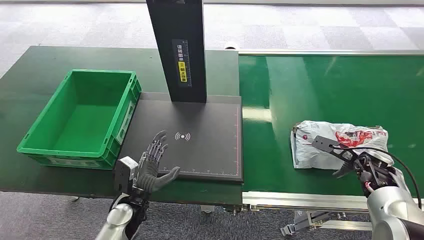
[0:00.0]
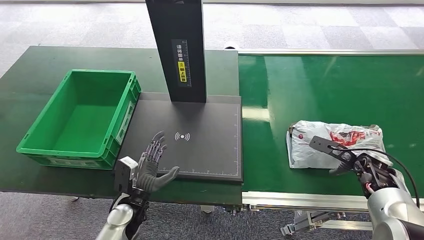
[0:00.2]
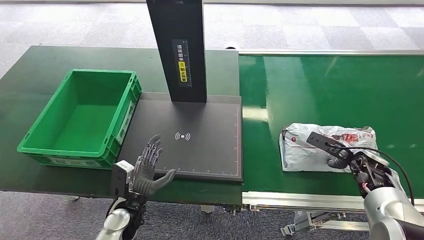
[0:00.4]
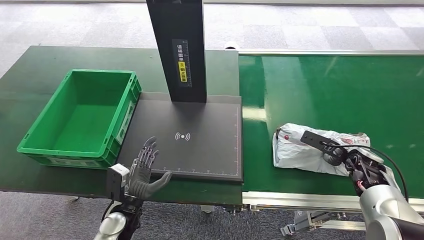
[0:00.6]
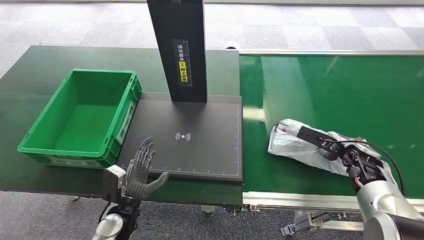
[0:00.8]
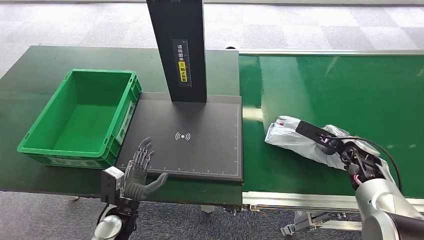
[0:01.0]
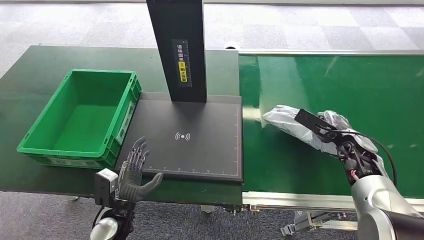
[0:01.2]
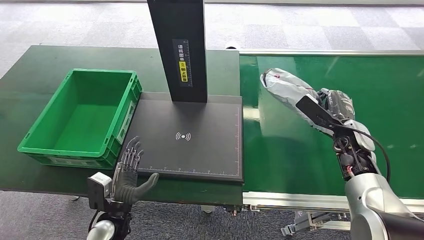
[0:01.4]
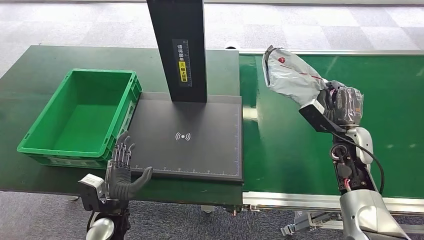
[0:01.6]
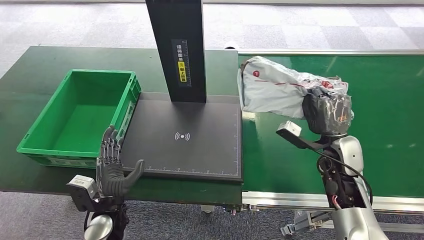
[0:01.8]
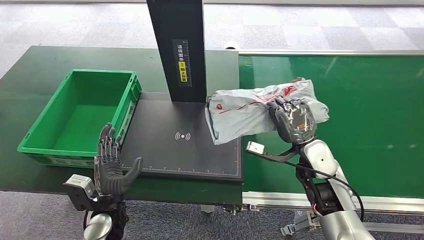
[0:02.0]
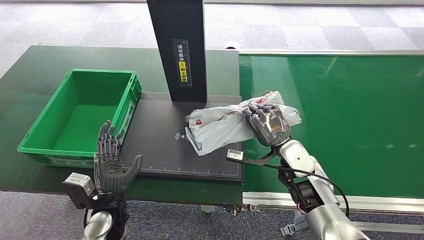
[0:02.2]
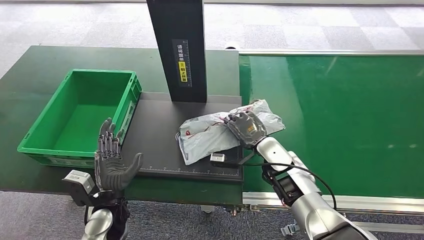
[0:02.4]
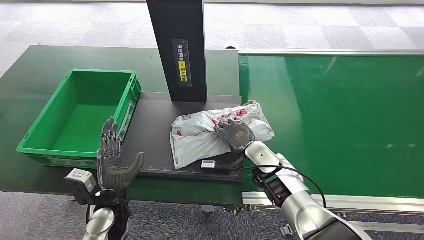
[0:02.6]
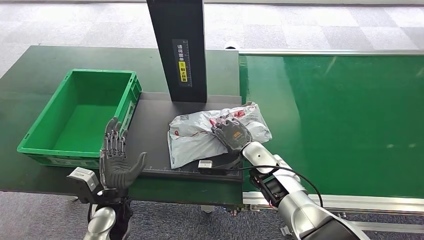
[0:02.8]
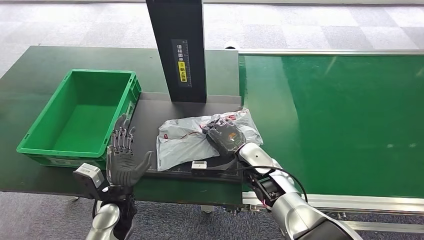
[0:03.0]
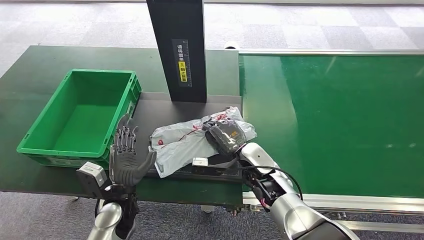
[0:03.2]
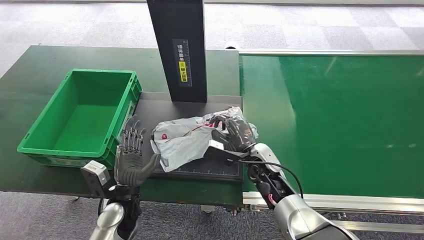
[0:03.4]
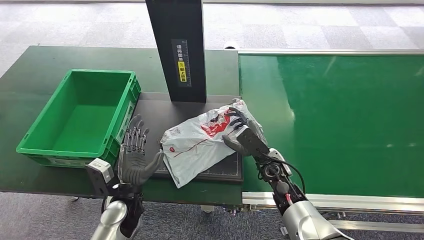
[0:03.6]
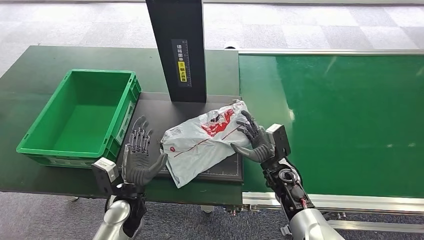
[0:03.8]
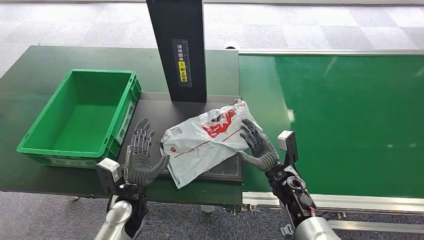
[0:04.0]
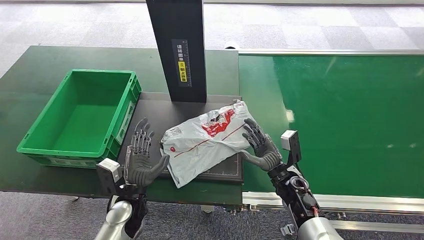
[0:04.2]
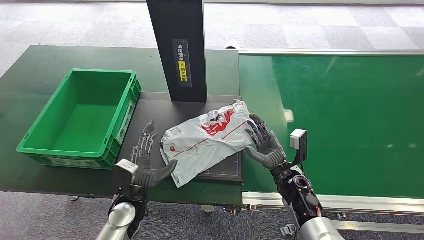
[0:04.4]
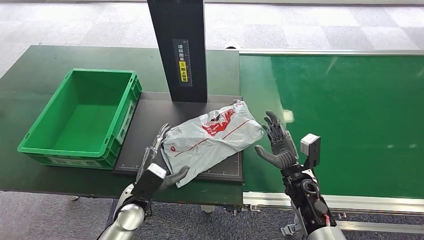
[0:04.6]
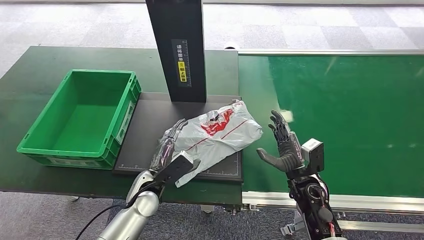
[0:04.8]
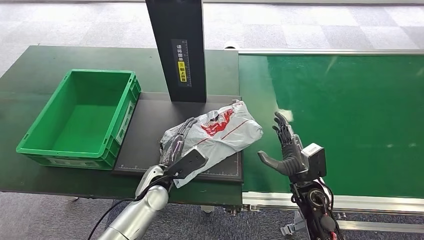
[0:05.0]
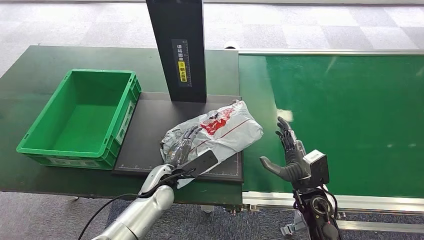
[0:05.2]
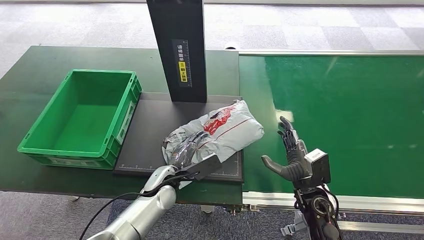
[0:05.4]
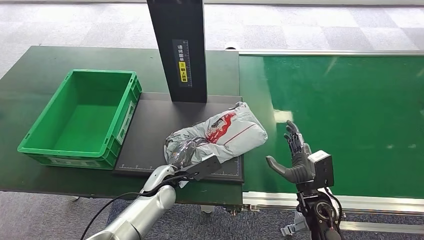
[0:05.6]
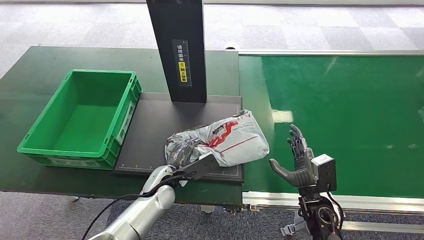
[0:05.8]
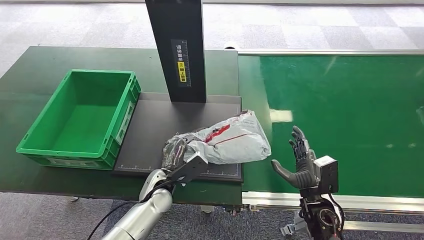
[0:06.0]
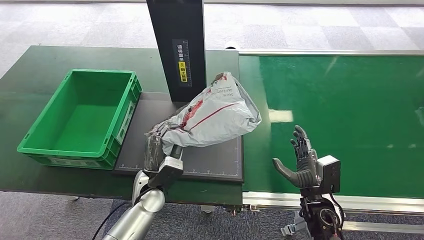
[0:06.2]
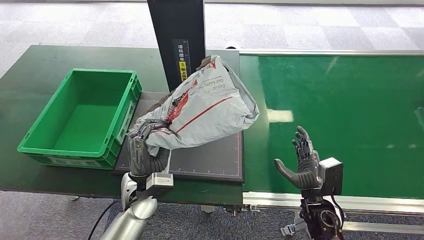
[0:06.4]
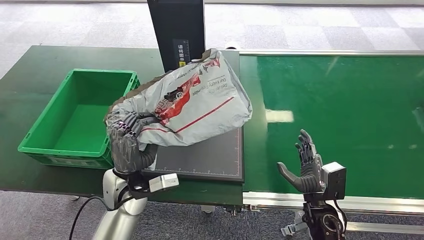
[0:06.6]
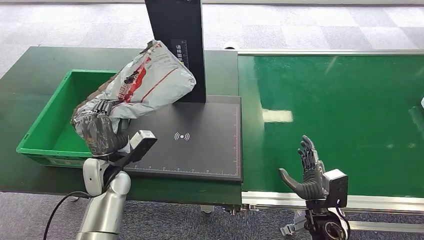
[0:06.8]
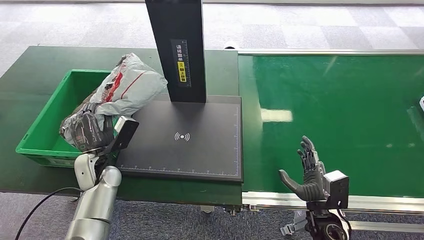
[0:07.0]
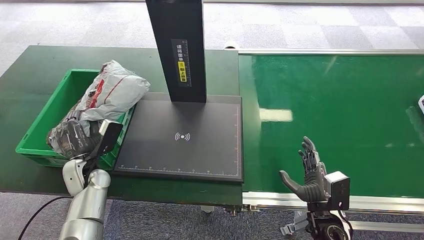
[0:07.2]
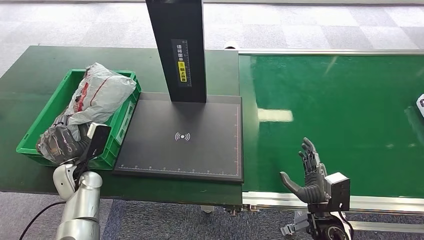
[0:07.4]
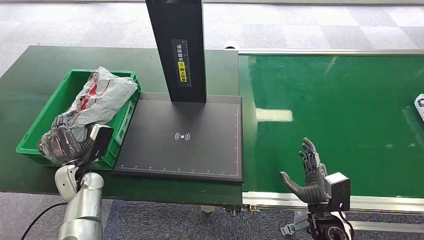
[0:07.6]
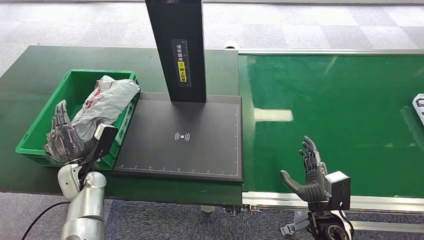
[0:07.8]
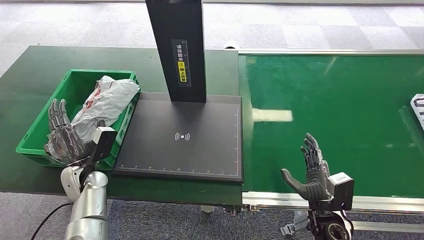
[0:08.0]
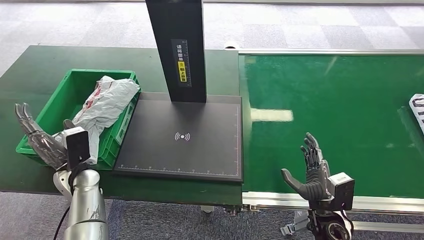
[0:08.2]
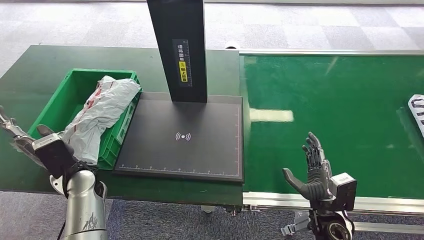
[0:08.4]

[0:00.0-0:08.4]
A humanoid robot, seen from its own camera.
Step, 0:00.0 to 0:01.4: Pick up the package from the conveyor belt.
Step, 0:01.6 to 0:03.8: Place the package onto the inbound machine.
Step, 0:04.0 to 0:06.4: Pick up the package from the inbound machine.
Step, 0:06.6 to 0:08.4: Place the package into the parcel locker.
0:02.8 to 0:04.2: The right hand travels to the right and downward by roughly 10 cm.
0:04.2 to 0:05.6: The left hand moves to the right and forward, roughly 10 cm. Meanwhile the right hand moves backward, approximately 5 cm.

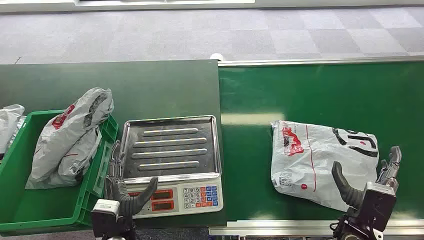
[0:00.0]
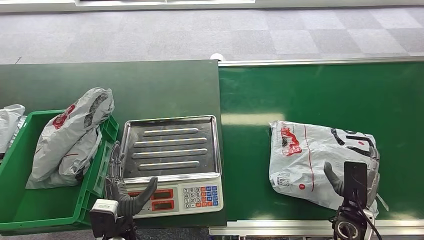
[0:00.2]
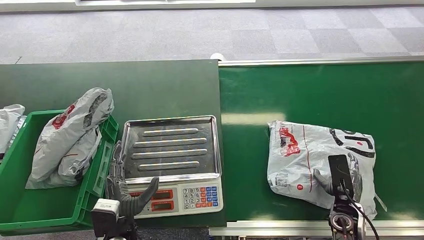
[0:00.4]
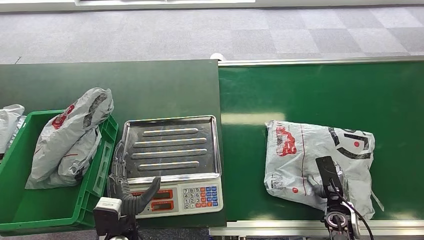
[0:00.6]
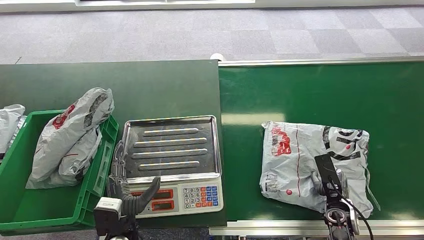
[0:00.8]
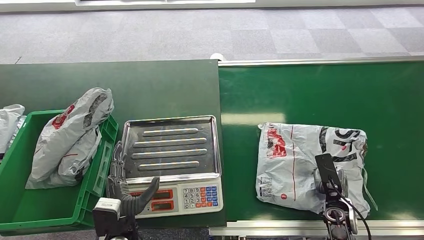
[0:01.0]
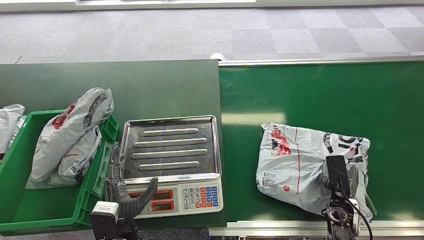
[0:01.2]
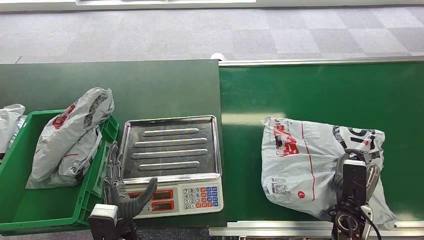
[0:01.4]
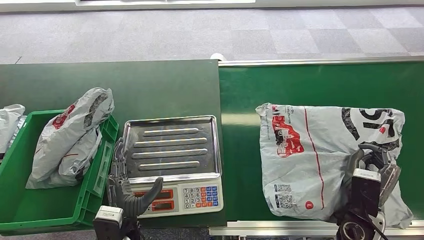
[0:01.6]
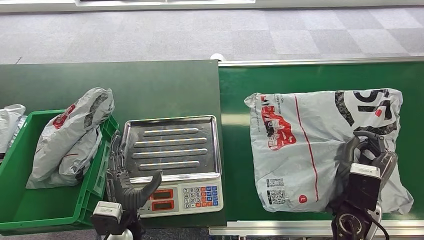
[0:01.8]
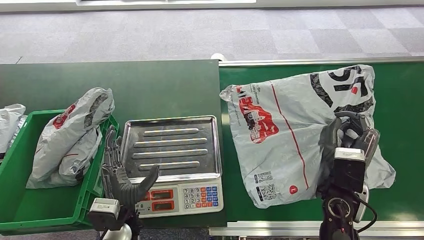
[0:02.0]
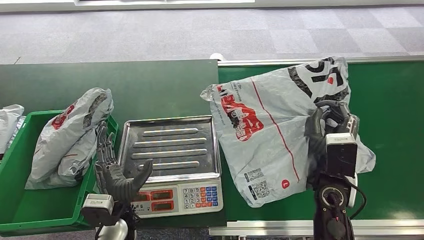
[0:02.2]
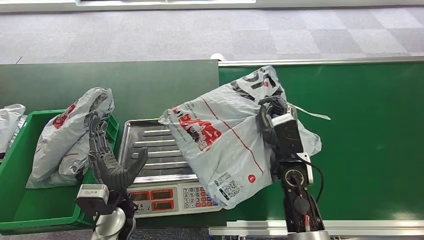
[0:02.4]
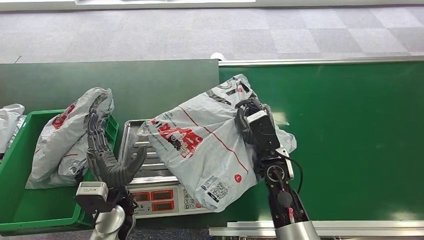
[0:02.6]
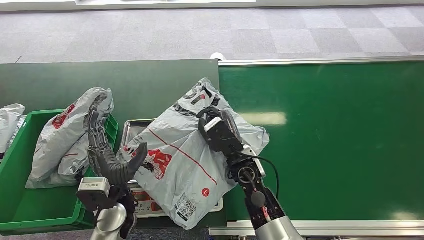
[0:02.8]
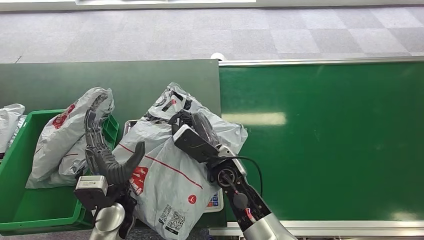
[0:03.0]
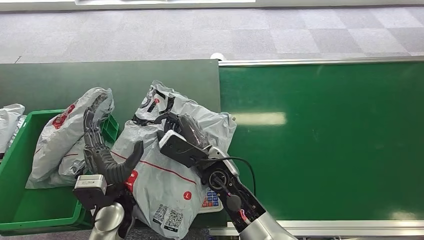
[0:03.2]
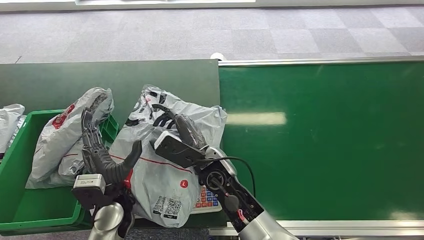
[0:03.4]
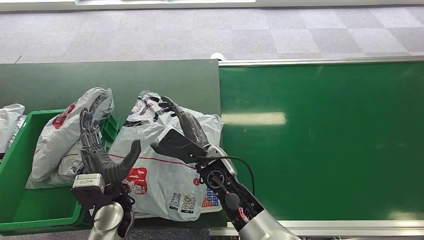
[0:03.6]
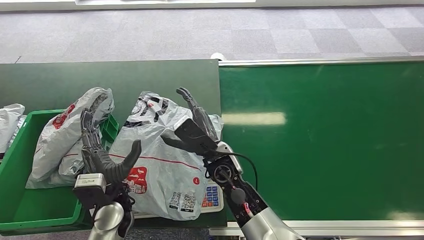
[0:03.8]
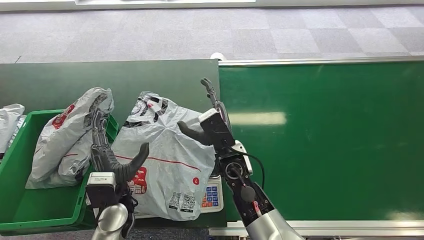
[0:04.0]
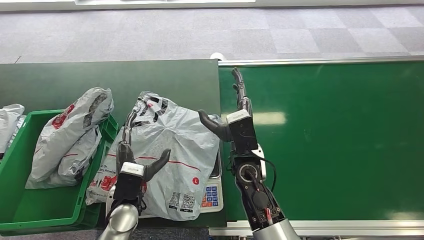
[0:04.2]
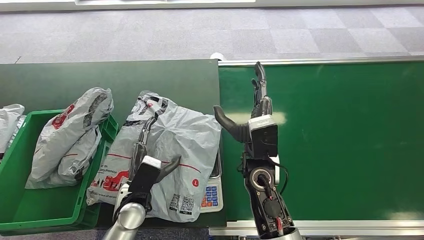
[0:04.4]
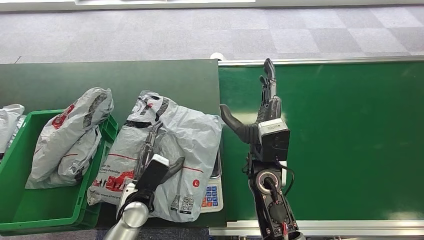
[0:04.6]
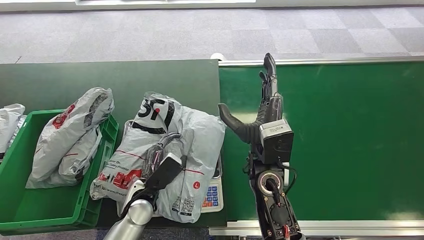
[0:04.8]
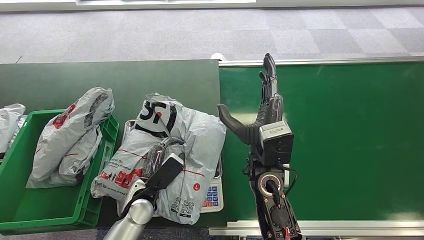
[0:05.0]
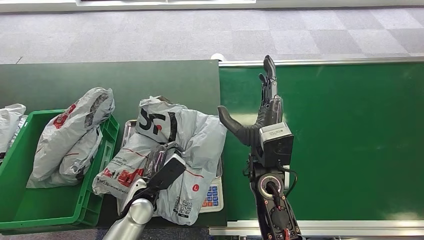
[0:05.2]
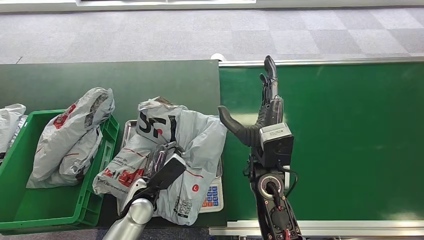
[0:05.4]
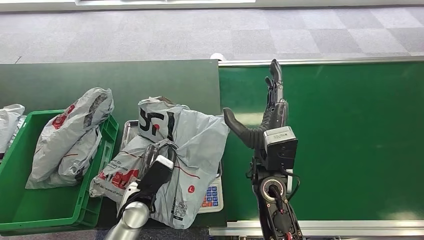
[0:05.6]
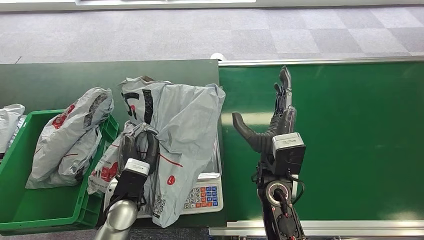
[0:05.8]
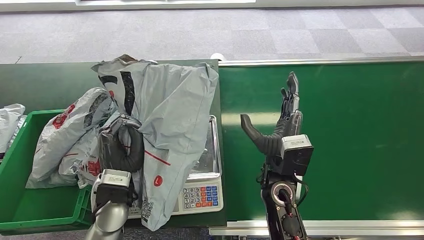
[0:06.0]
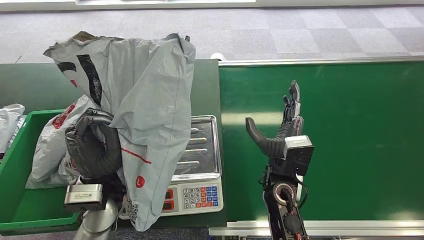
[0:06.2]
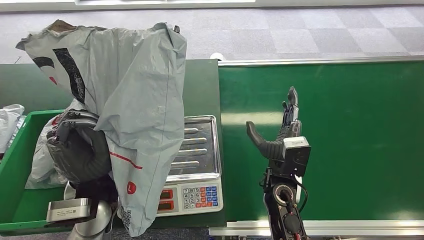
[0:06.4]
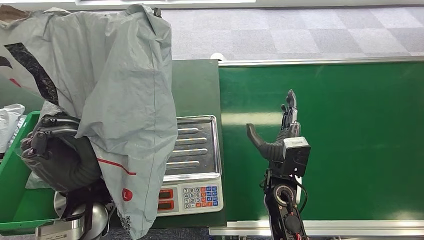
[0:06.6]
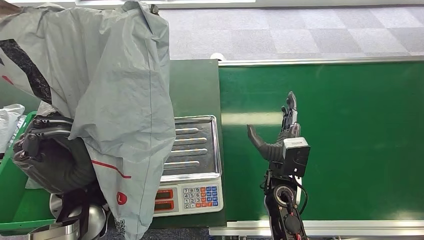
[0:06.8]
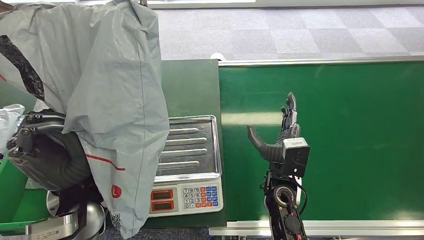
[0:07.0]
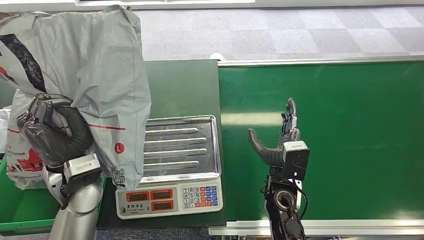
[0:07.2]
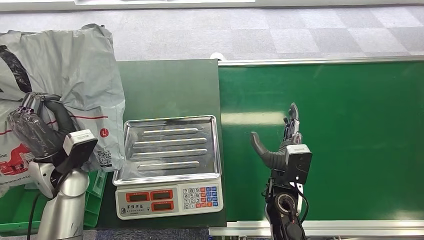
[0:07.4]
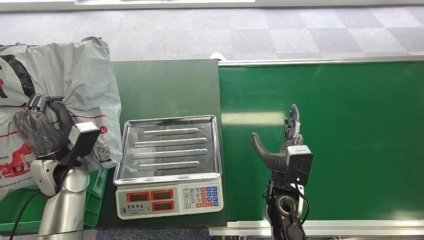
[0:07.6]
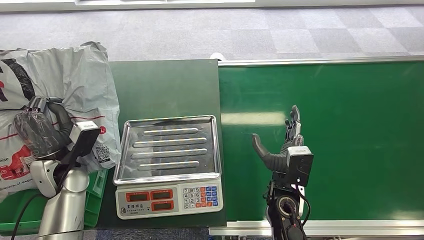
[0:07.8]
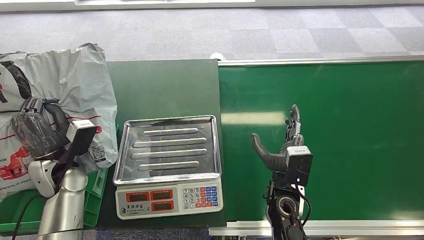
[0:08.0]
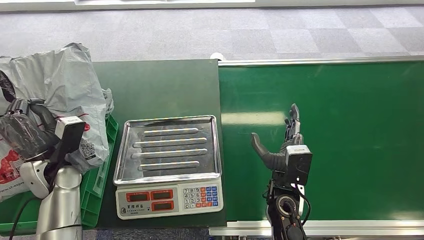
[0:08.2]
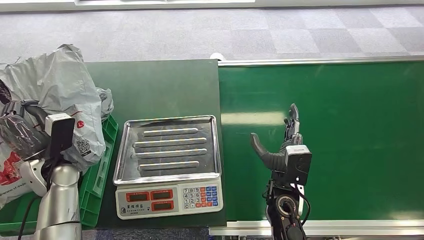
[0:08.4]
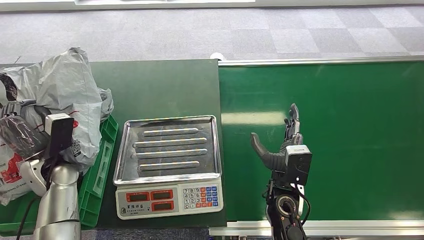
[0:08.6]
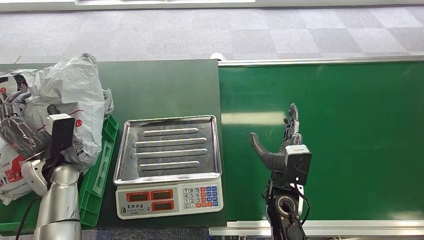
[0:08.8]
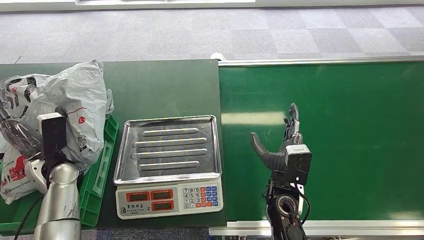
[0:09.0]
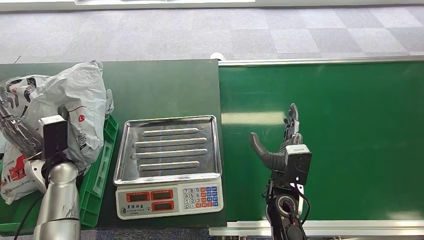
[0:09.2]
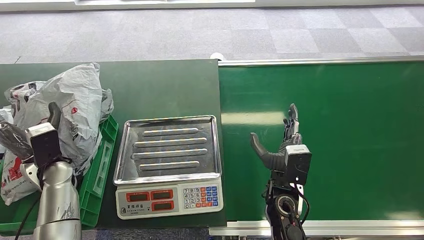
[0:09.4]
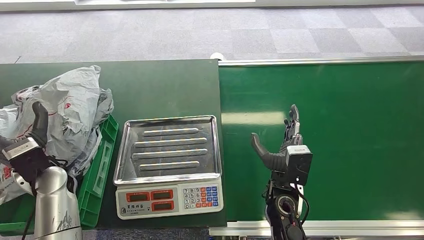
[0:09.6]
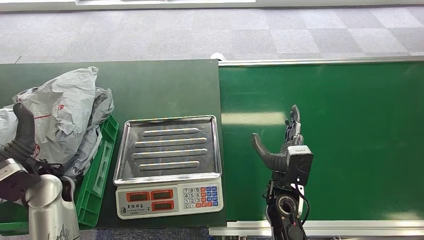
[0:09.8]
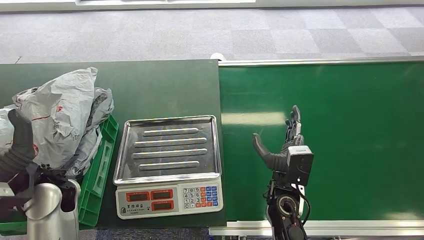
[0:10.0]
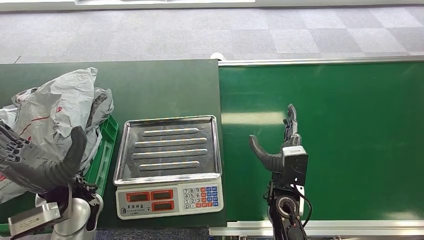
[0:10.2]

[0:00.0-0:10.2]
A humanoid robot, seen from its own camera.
Step, 0:00.0 to 0:01.8: Pick up the package from the conveyor belt.
Step, 0:02.2 to 0:04.4: Place the package onto the inbound machine.
Step, 0:04.6 to 0:06.2: Pick up the package from the inbound machine.
0:03.0 to 0:04.4: The right hand shifts by approximately 5 cm.
0:08.8 to 0:10.2: The left hand travels to the right, backward and upward by roughly 15 cm.
